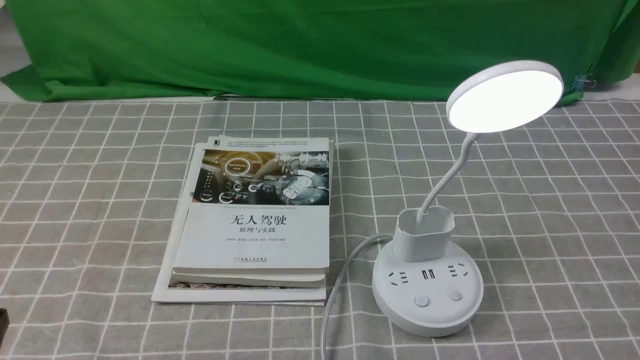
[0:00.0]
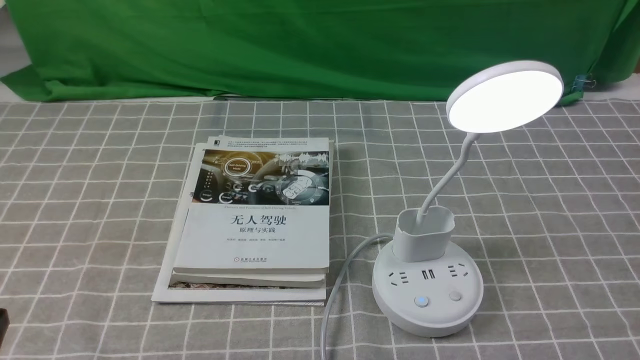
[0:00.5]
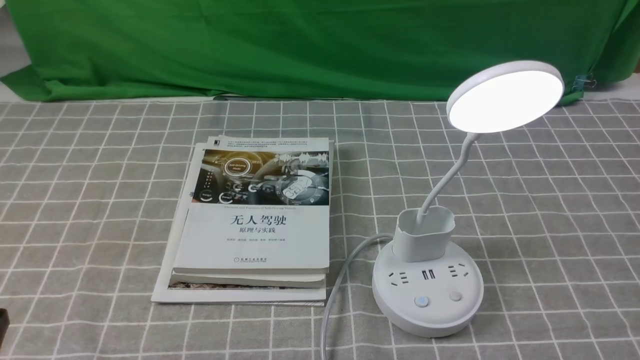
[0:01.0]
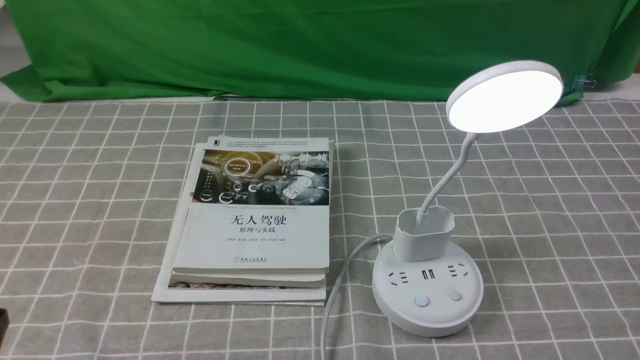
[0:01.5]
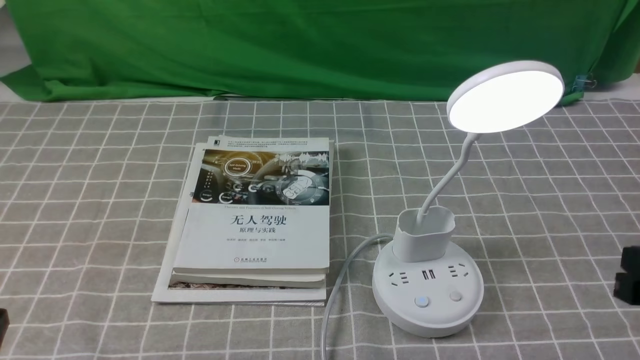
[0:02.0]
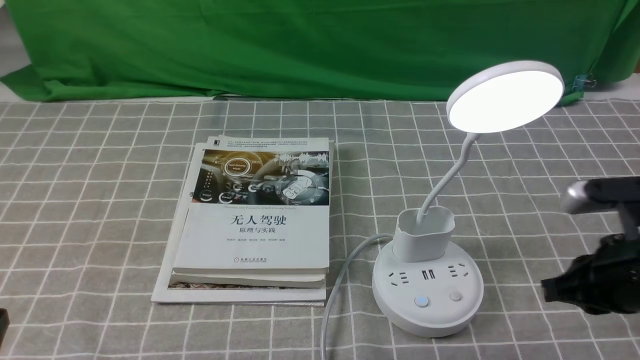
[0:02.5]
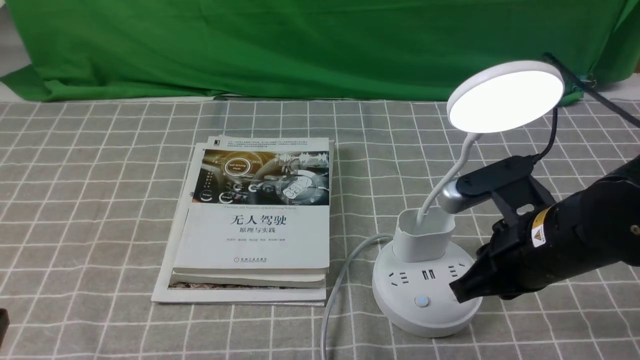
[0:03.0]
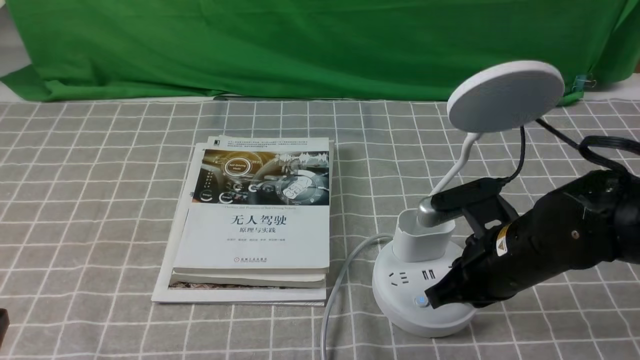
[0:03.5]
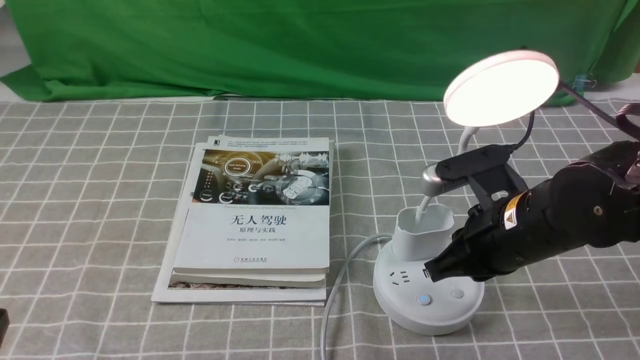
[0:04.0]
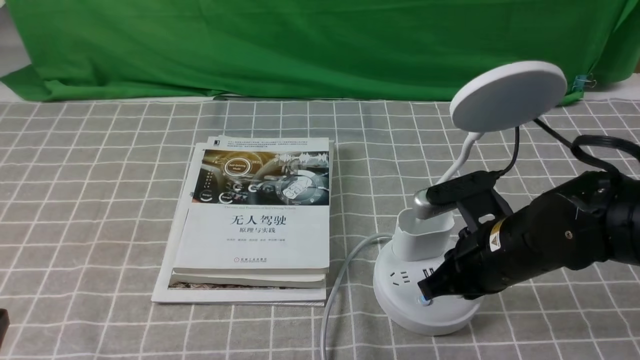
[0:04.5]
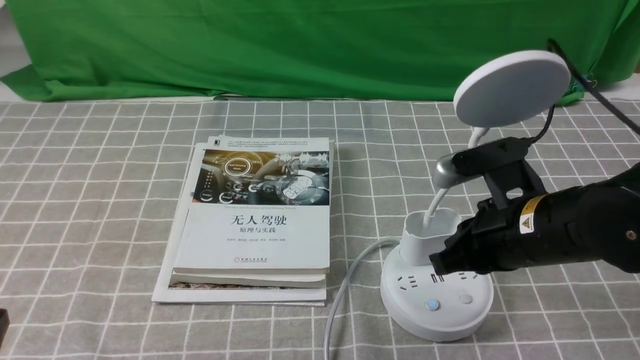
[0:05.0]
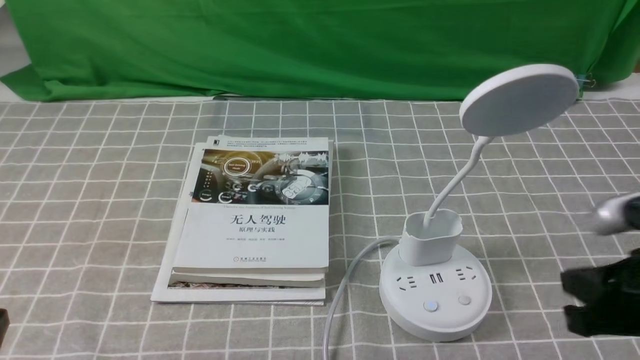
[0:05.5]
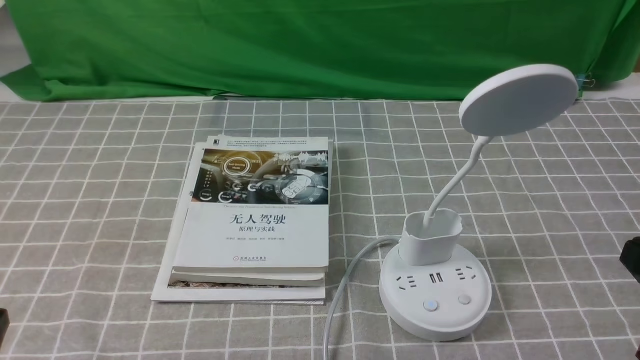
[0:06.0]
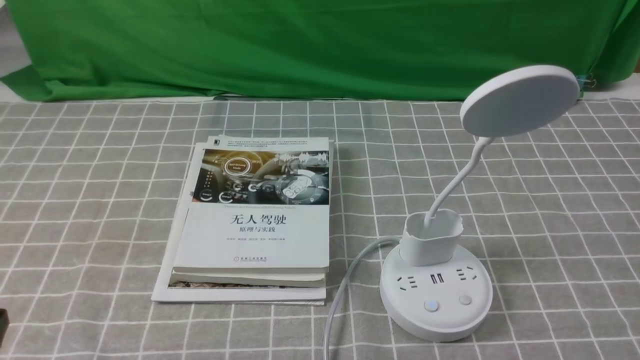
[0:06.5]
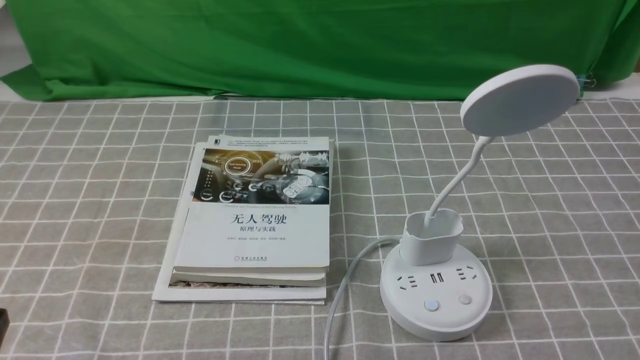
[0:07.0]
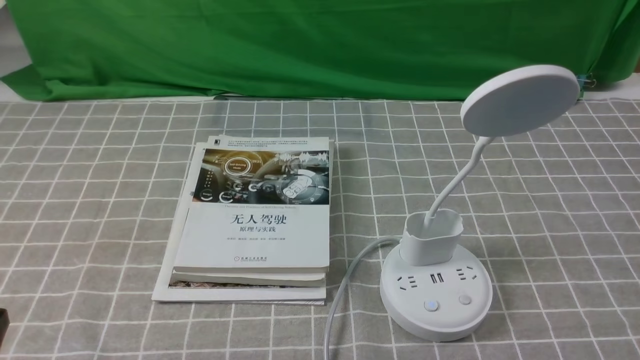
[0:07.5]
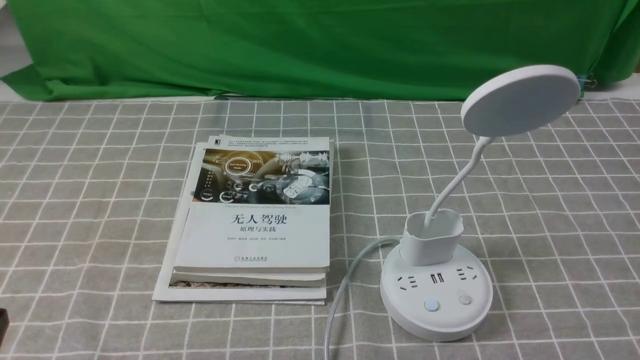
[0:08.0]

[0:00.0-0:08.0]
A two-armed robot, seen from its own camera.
Task of the whole recording: turn off the desk lamp on the grey coffee tablecloth by hand.
Step, 0:00.0 to 0:05.0: use the right arm to press the button switch on the lamp holder.
0:02.0 to 0:04.0: The right gripper shifts approximately 15 cm to the left and forward, and closes.
0:04.0 to 0:06.0: The right gripper shifts some 20 cm backward, to the right and upward.

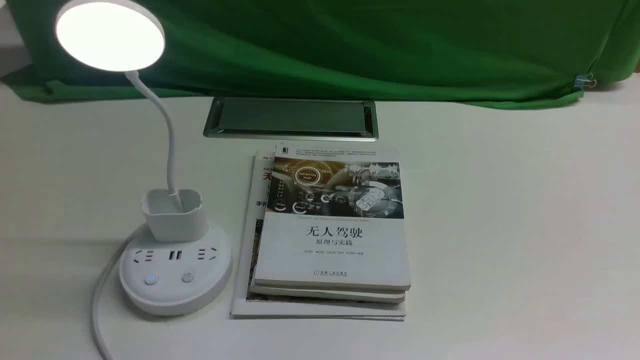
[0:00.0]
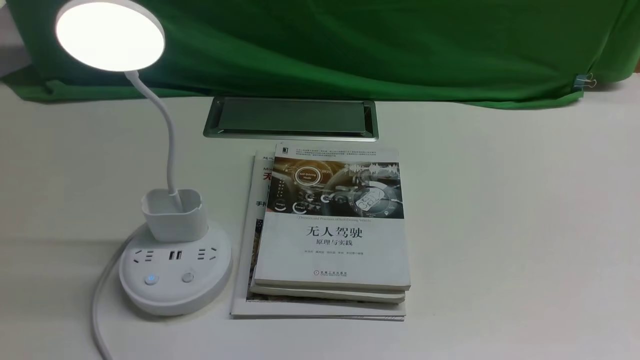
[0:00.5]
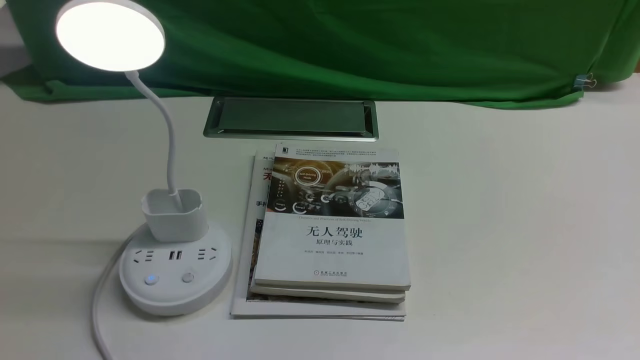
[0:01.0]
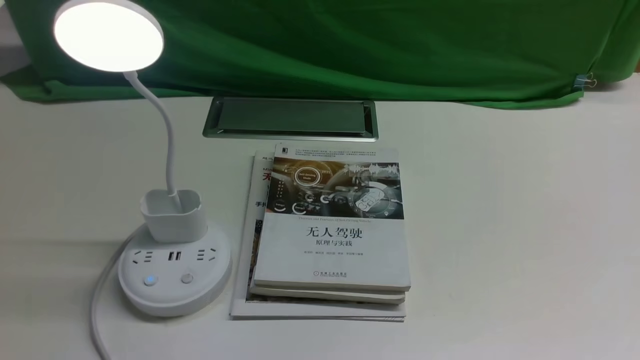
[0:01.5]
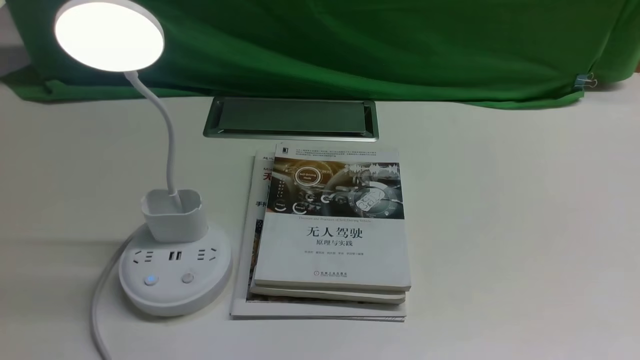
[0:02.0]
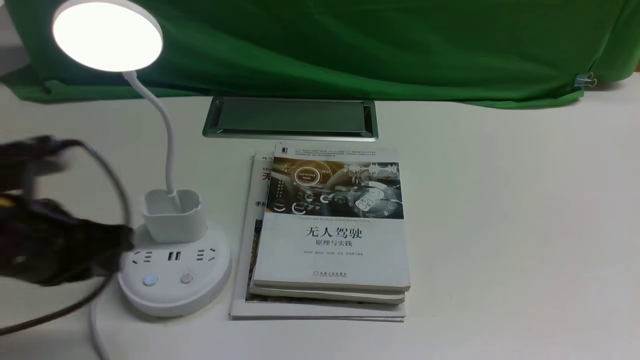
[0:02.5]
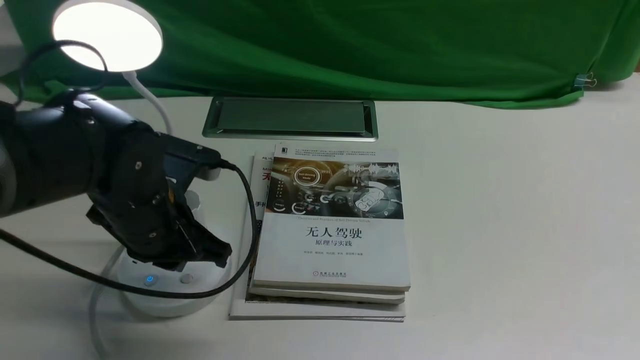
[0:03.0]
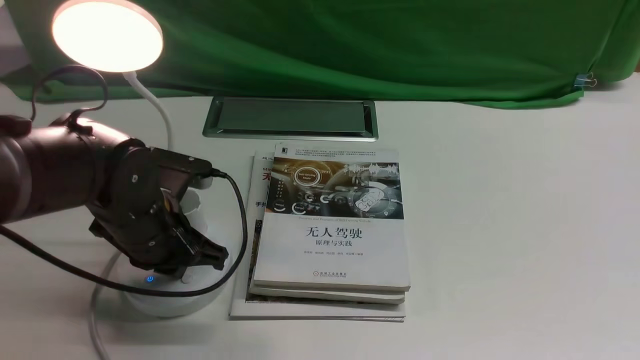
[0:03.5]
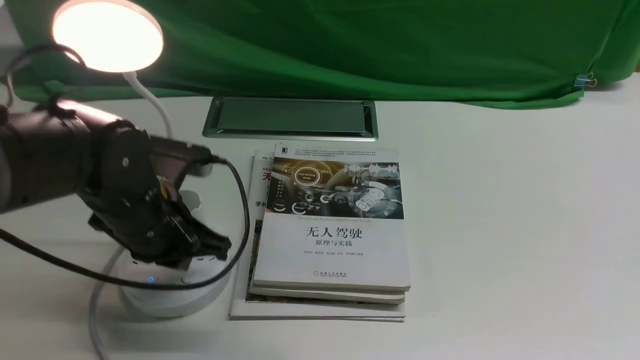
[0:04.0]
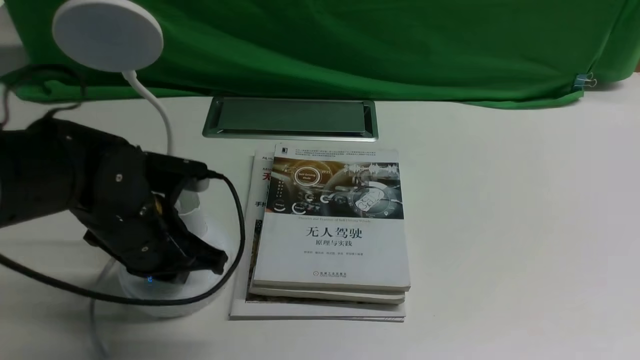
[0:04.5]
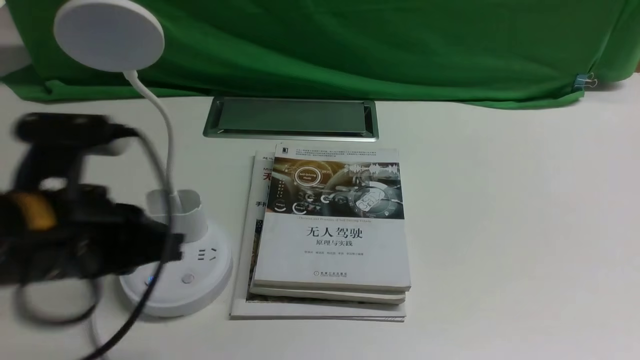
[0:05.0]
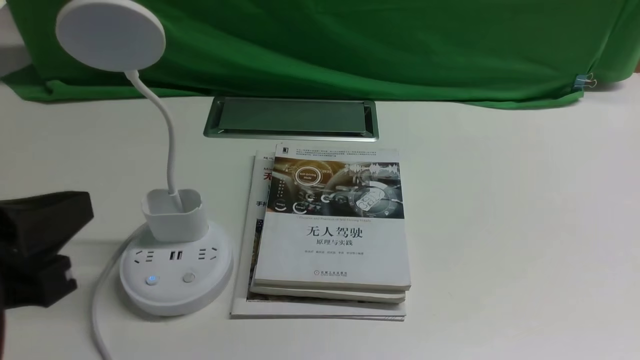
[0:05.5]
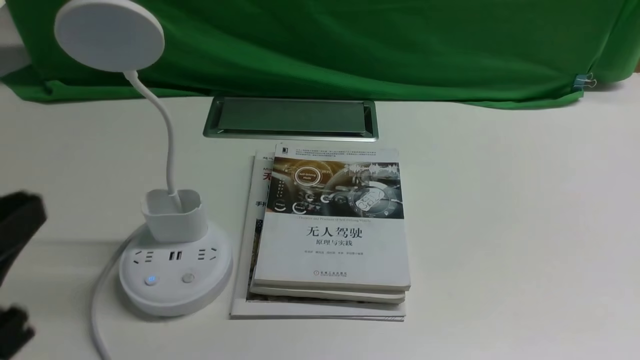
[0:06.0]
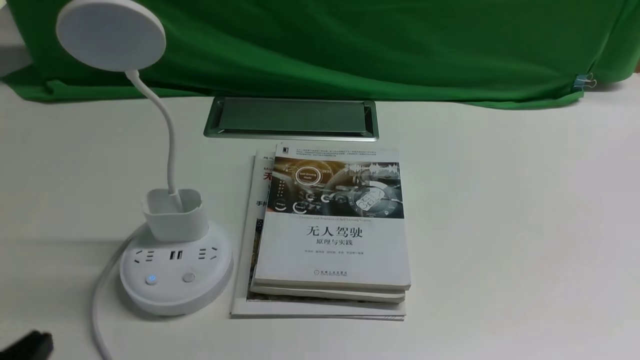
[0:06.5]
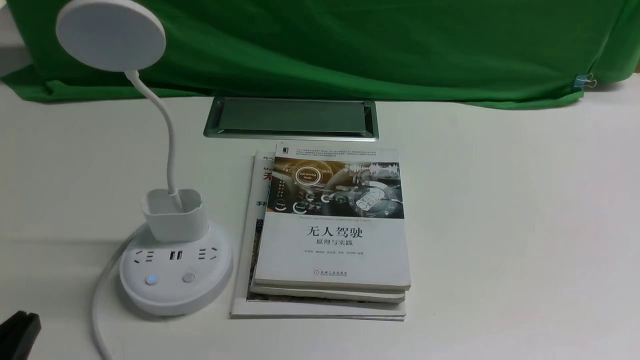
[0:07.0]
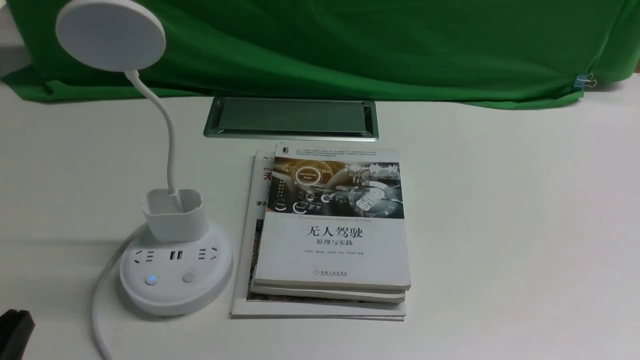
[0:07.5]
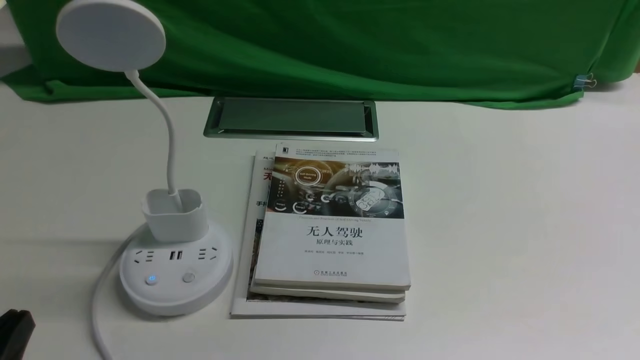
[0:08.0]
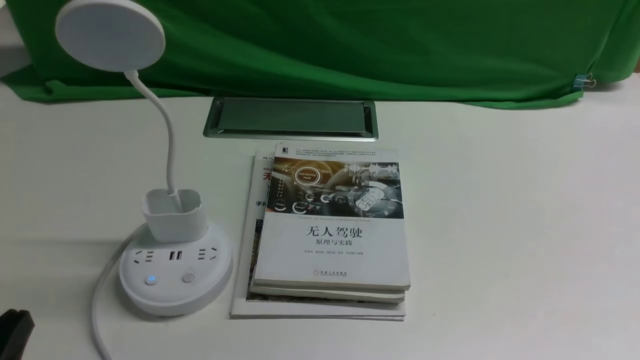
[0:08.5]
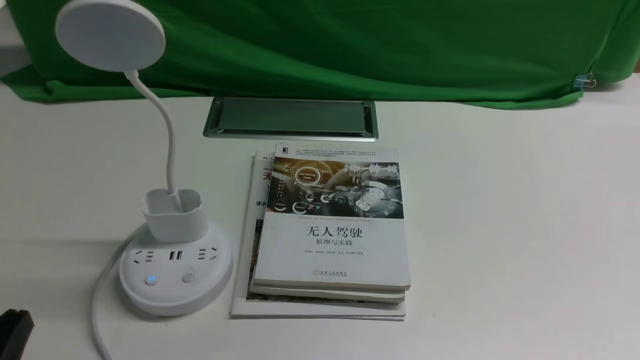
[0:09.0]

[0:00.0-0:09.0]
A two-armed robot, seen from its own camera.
Task of the whole recording: turn off the desk lamp on the white desktop by hand.
Step, 0:00.0 to 0:04.5: use the left arm to press the button switch on the lamp holder.
0:02.0 to 0:04.5: The left gripper travels forward, downward and to the right by roughly 25 cm.
0:04.5 to 0:07.0: The left gripper travels backward by roughly 20 cm, and opens.
